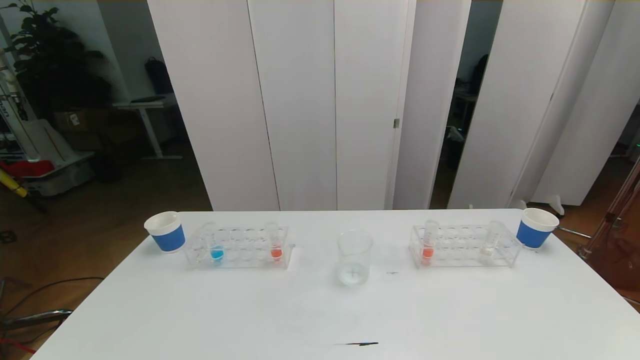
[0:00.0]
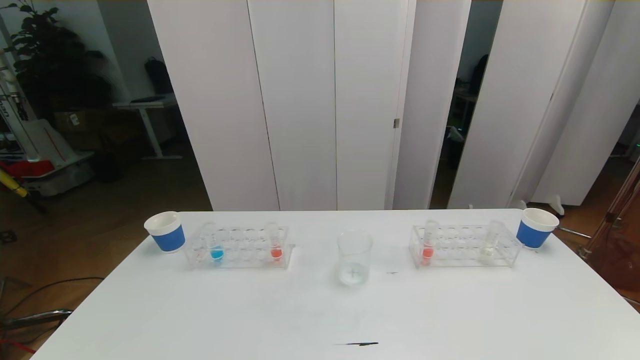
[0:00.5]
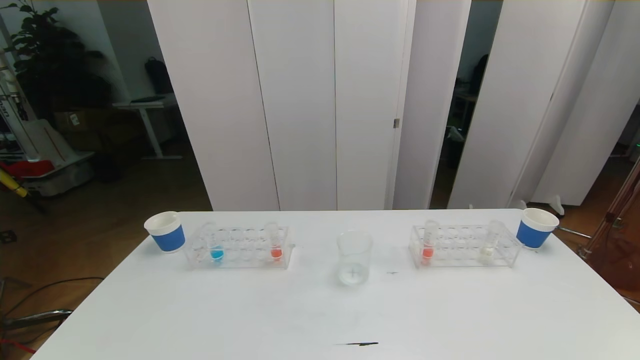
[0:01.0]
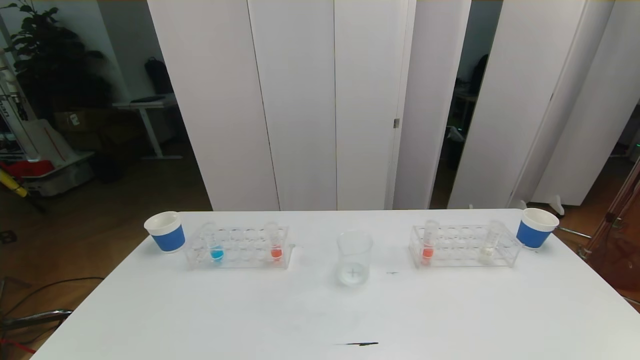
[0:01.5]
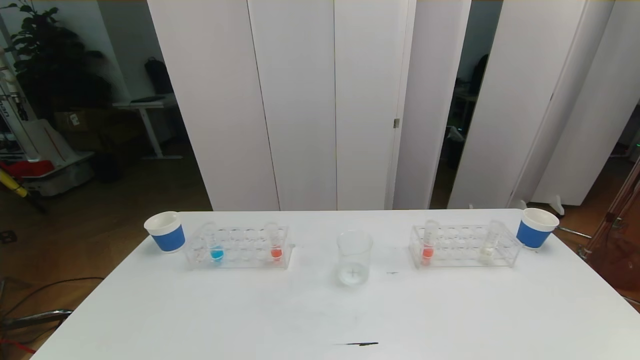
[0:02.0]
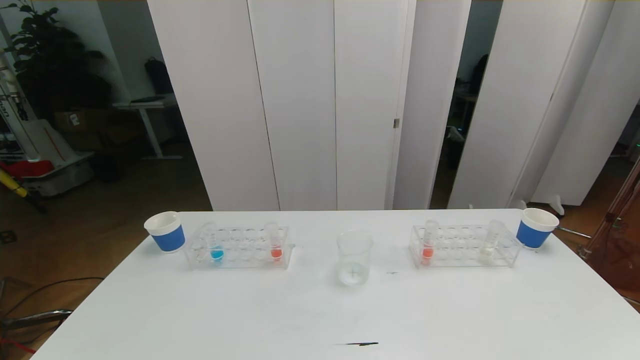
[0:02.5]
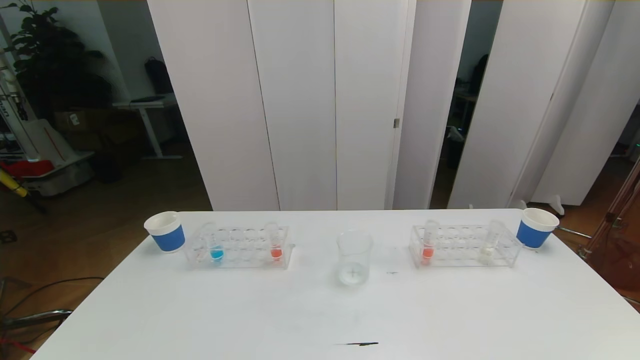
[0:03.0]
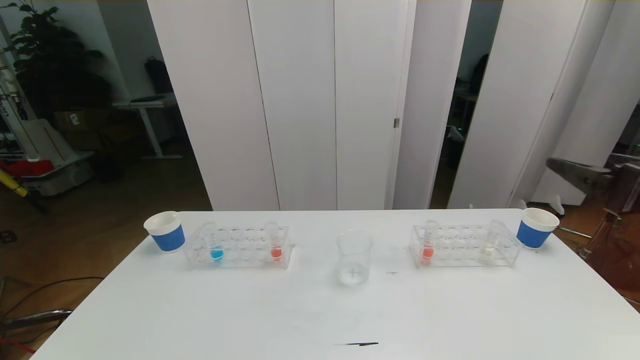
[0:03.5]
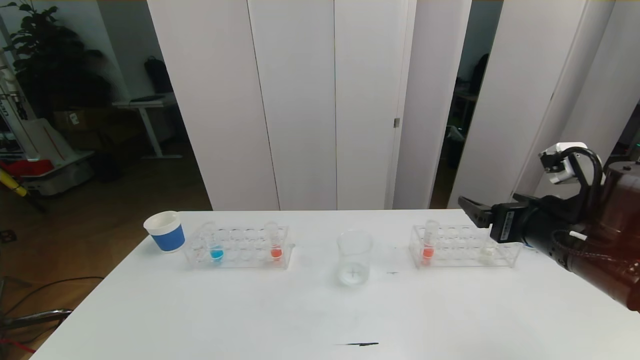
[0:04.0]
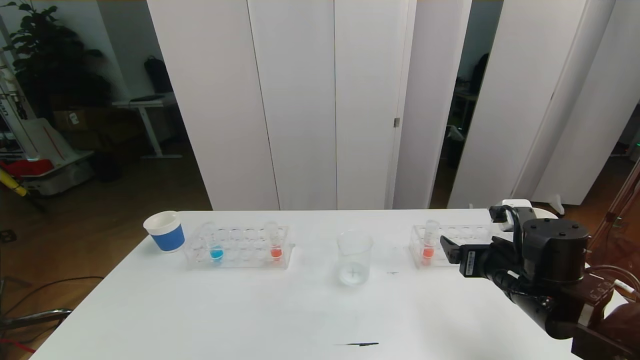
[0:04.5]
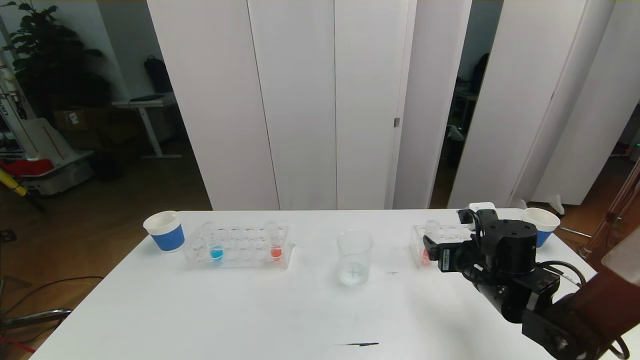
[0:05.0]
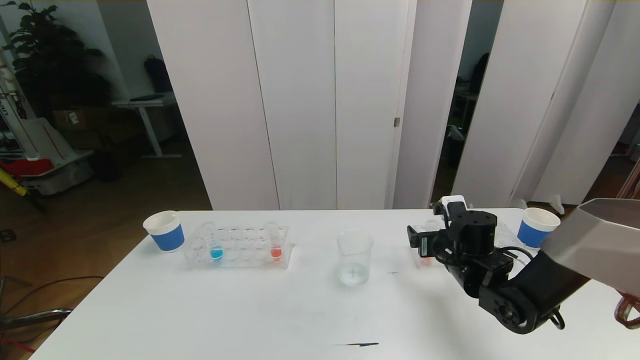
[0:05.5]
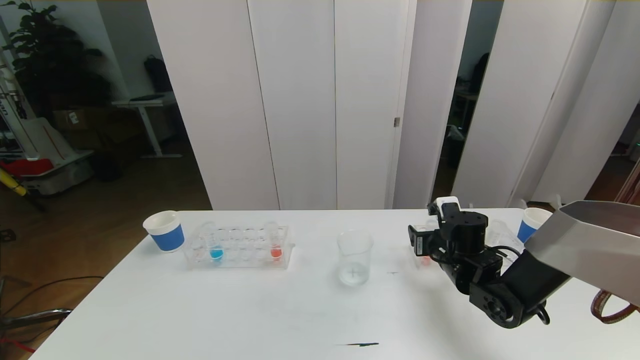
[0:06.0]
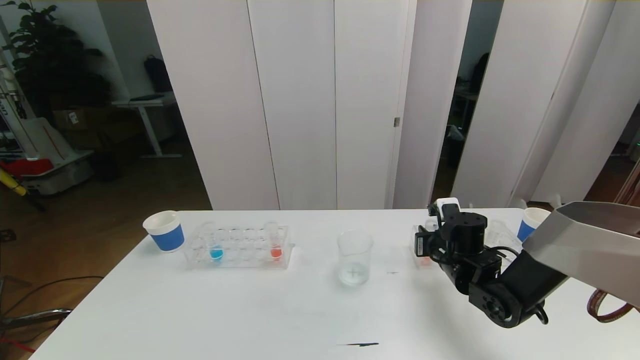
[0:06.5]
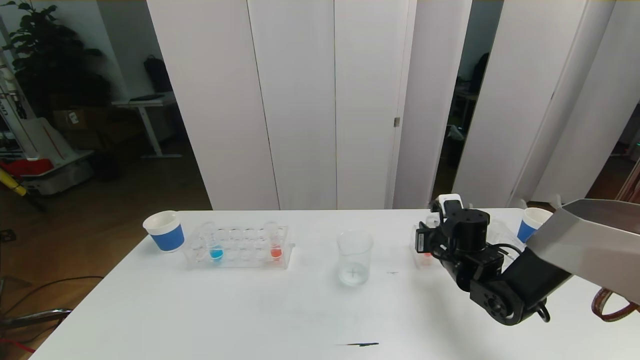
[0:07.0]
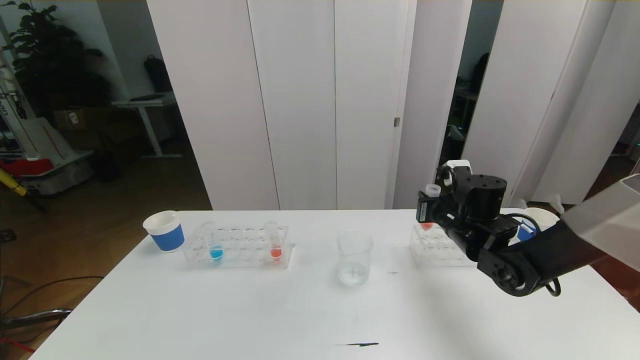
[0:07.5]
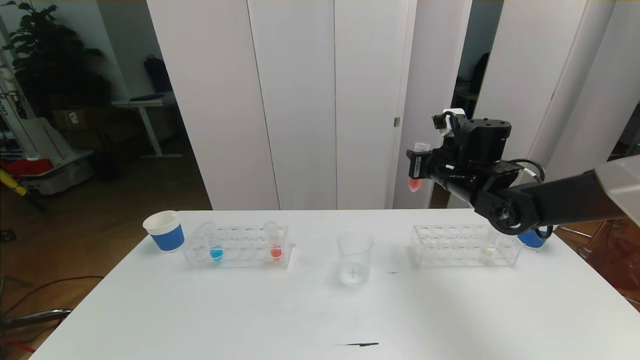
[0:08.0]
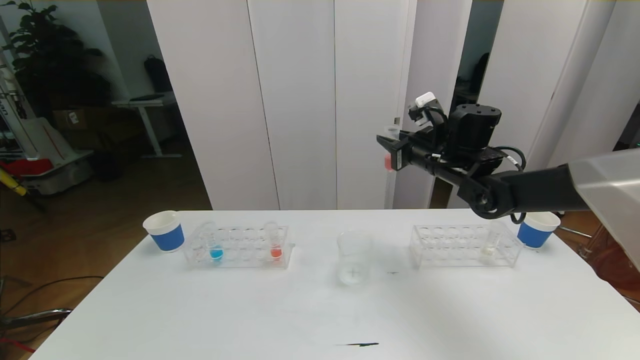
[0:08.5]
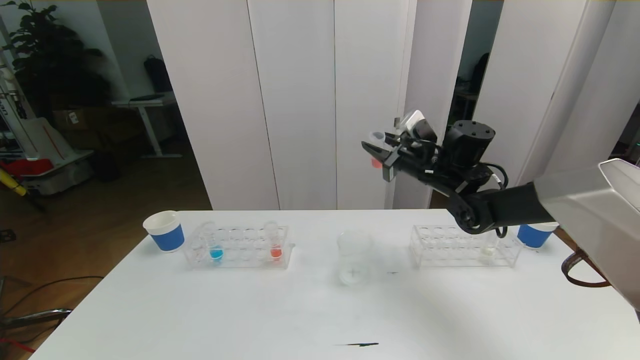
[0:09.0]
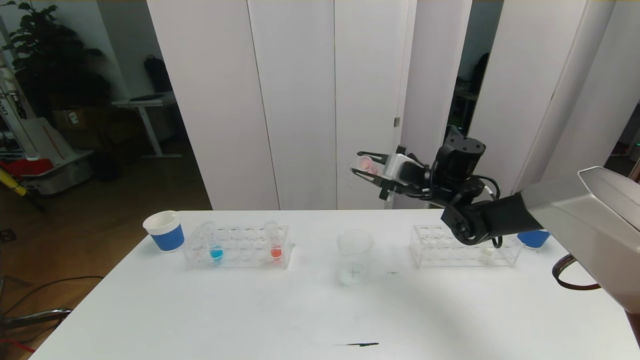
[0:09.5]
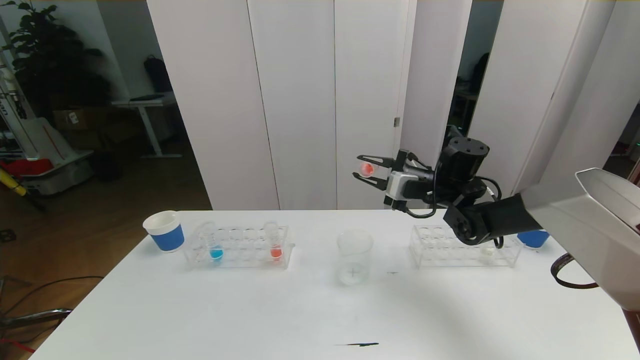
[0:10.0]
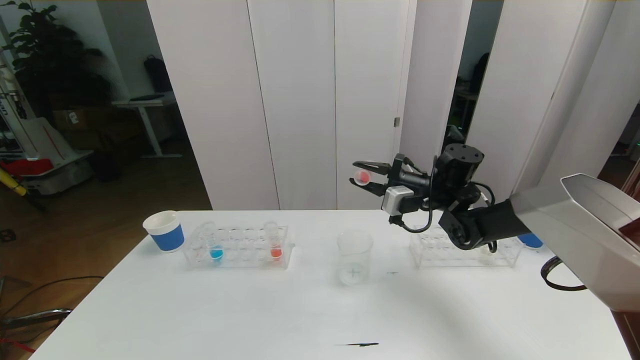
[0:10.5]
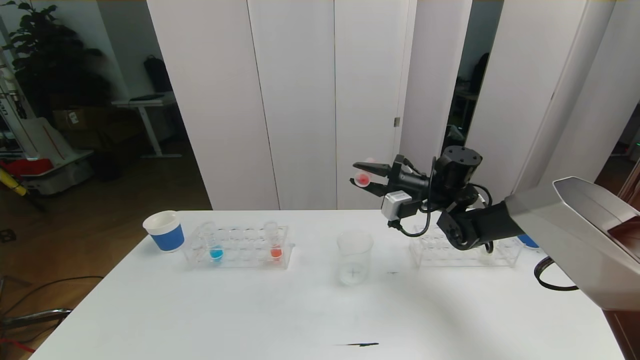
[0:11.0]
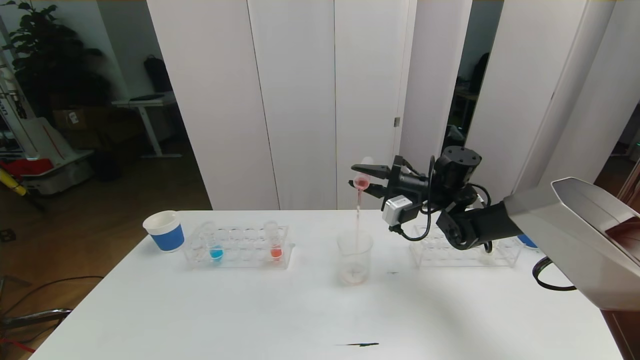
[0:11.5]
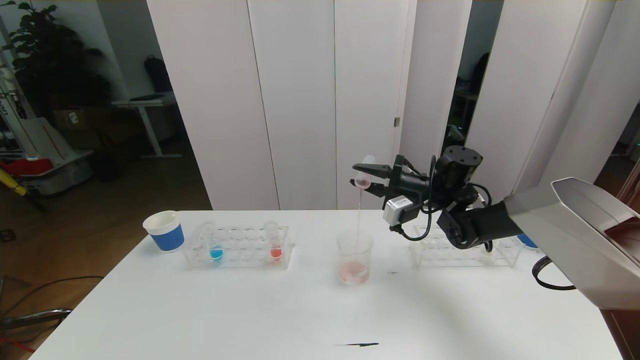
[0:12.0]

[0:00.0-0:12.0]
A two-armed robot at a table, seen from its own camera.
Task of the whole recording: pick up the test tube with red pigment the test tube with blue pigment and the test tube with white pigment by grippers and pour them into the beaker.
0:00.0 to 0:02.0: The two grippers keep their place.
0:02.0 to 0:04.0: The right gripper is displaced forward by some 25 cm.
0:04.0 to 0:06.0: The right gripper travels downward and forward by some 20 cm, and closes its fingers.
0:06.0 to 0:08.0: The right gripper shifts some 15 cm upward, and closes its fingers.
0:08.0 to 0:10.0: The right gripper changes place by roughly 5 cm.

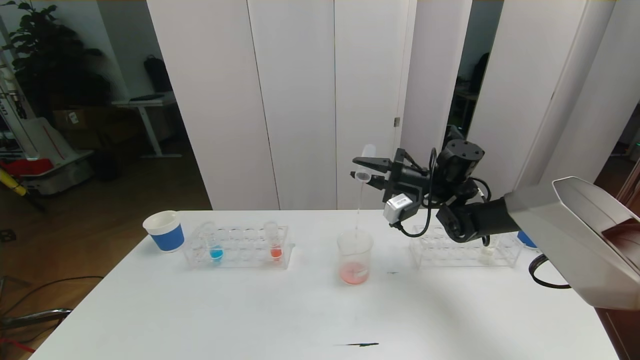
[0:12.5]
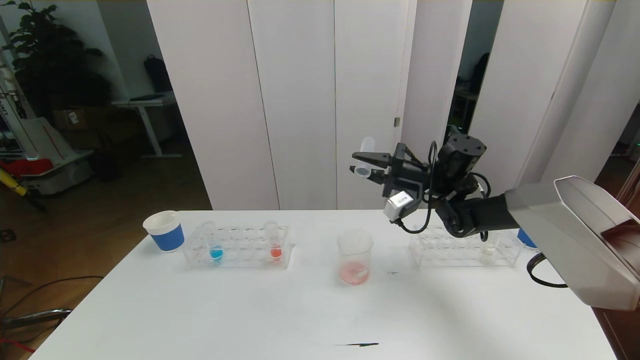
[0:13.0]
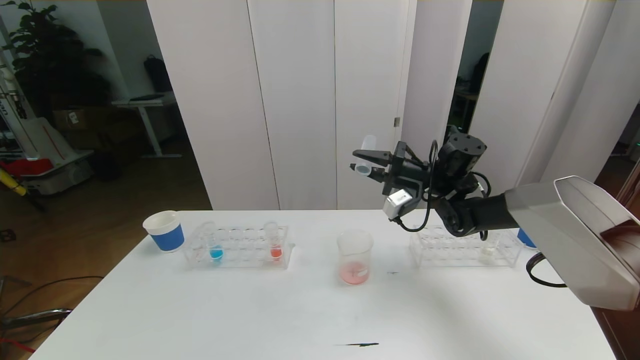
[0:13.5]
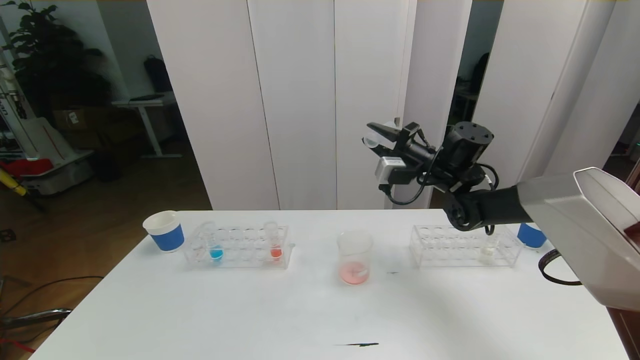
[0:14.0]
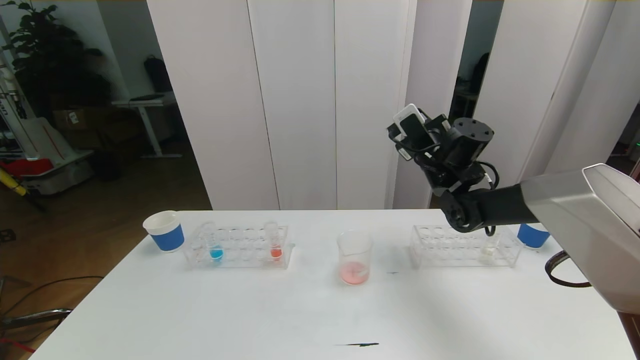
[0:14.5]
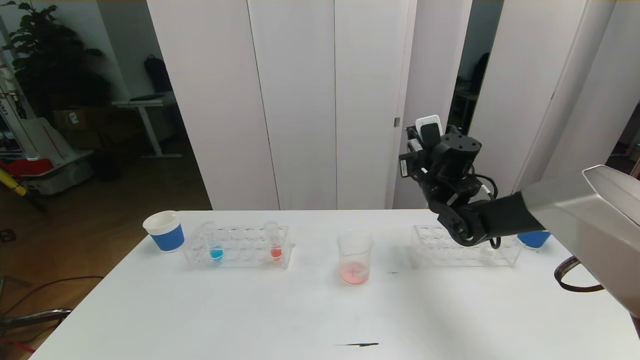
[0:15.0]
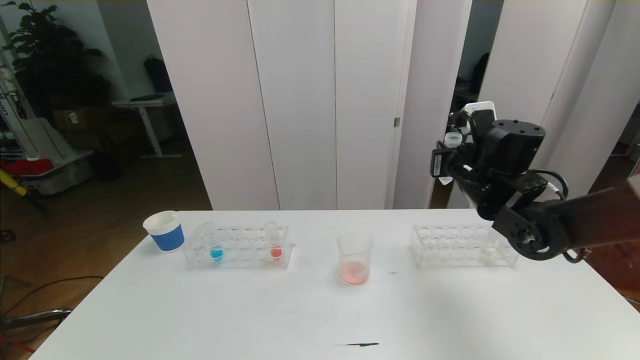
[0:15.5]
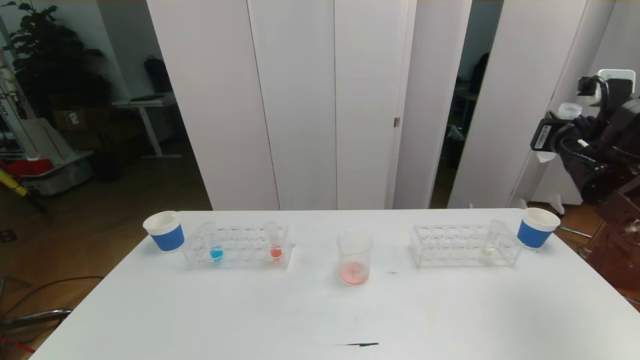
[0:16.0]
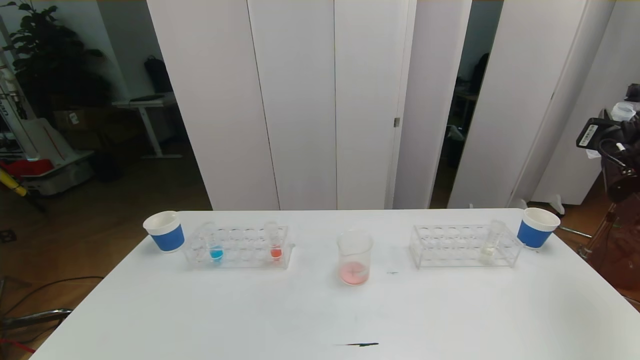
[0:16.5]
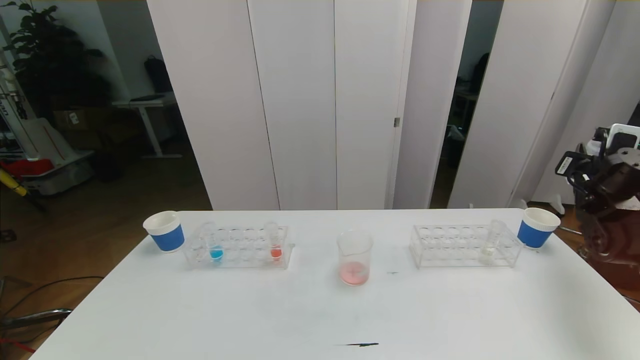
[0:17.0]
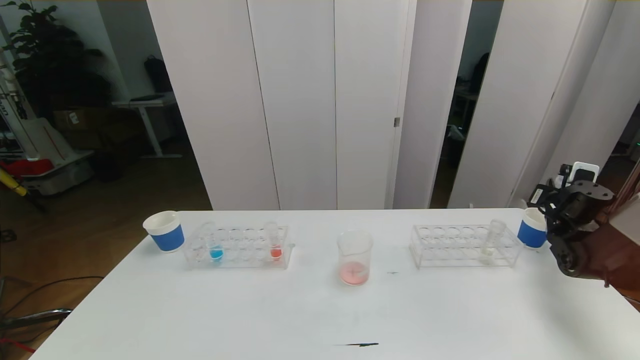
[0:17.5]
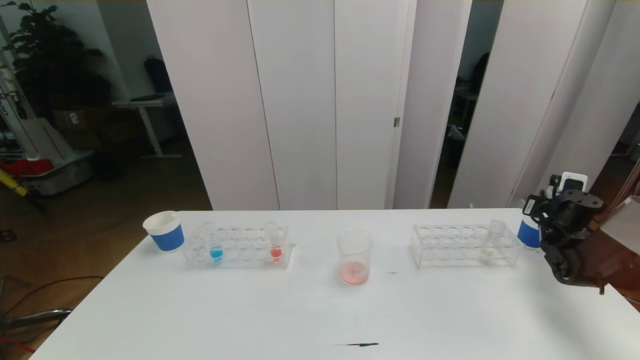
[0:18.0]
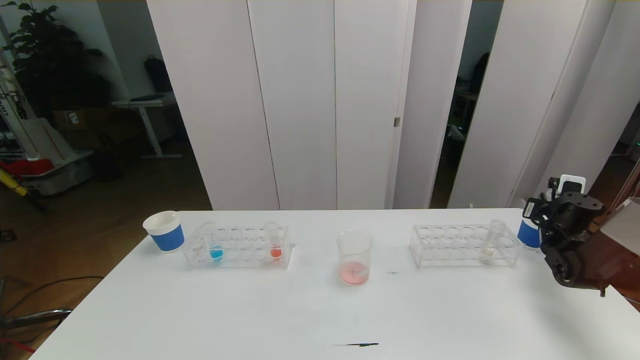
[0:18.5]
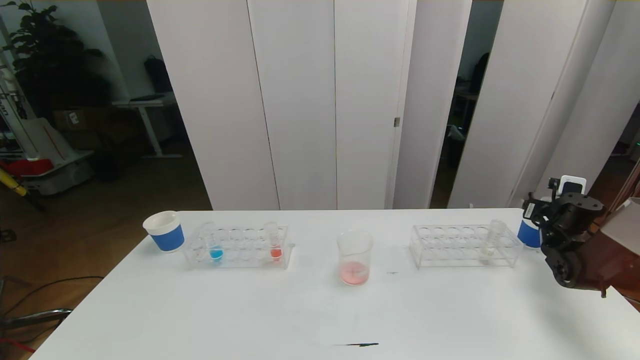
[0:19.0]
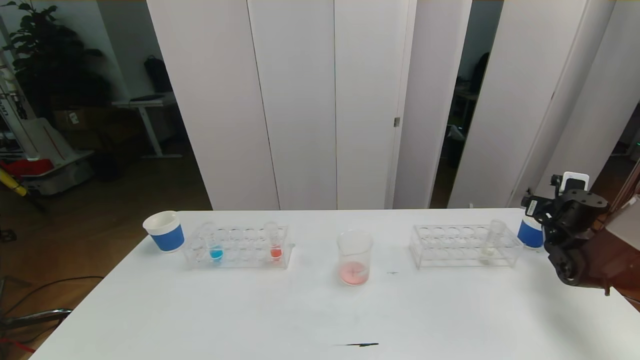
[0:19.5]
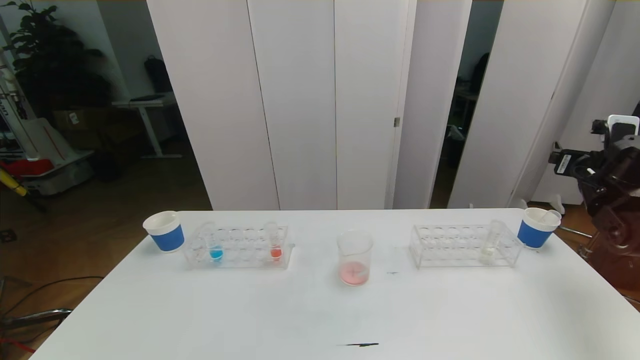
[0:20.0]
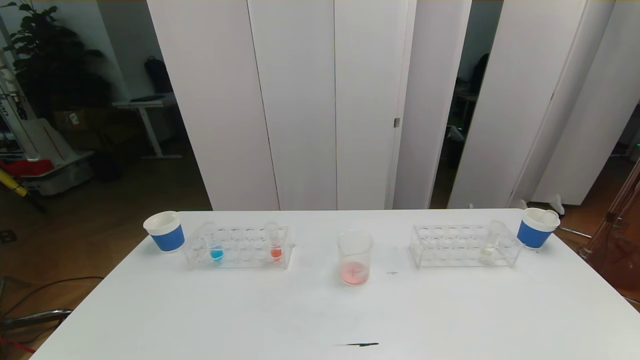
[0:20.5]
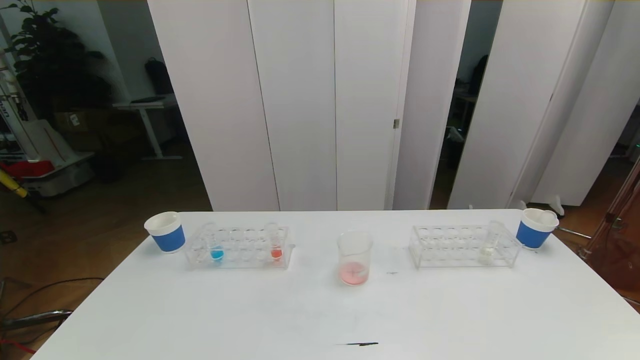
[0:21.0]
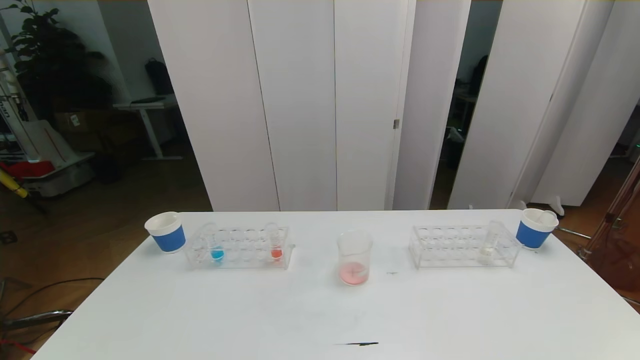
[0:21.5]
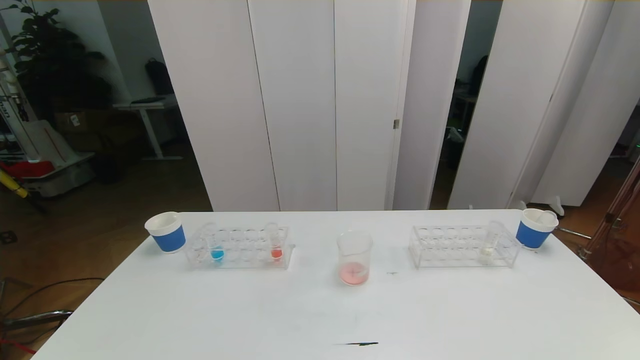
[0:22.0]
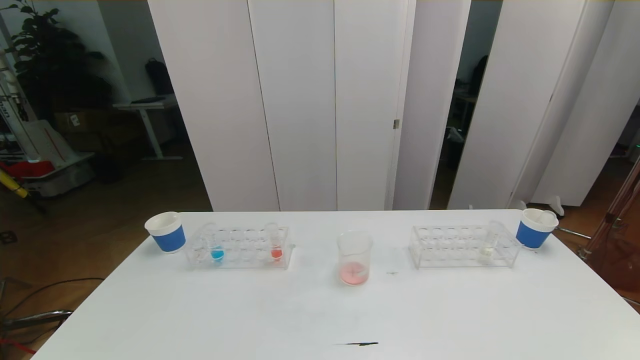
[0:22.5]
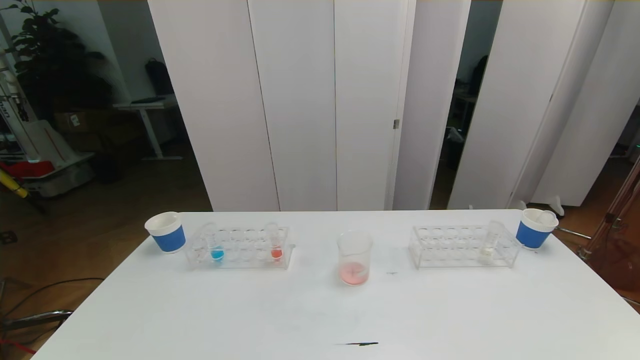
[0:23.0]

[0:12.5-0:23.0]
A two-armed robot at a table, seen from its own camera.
Task of the whole recording: pick up the test tube with red pigment the test tube with blue pigment and the test tube with white pigment by grippers and pour them into the beaker.
0:14.5 to 0:16.5: The right gripper is displaced to the right and backward by roughly 25 cm.
0:16.5 to 0:19.0: The right gripper shifts some 20 cm downward, and opens its fingers.
0:19.0 to 0:21.0: The right gripper goes roughly 50 cm backward and upward.
